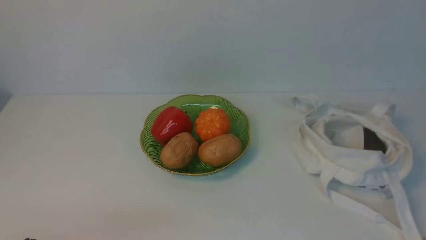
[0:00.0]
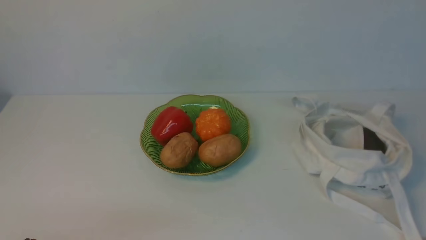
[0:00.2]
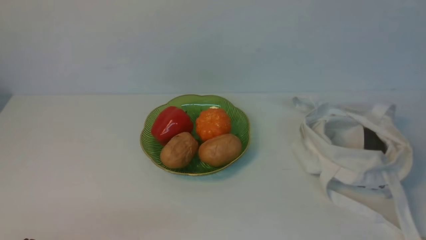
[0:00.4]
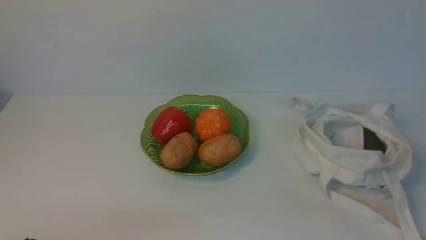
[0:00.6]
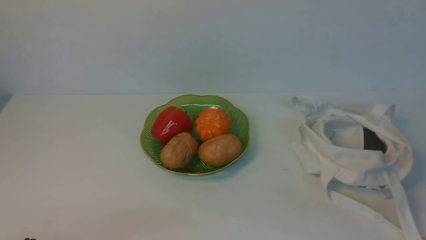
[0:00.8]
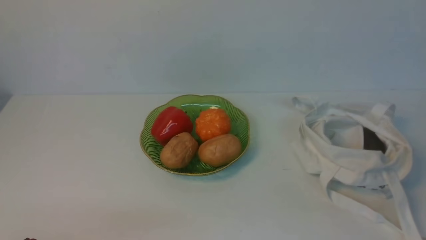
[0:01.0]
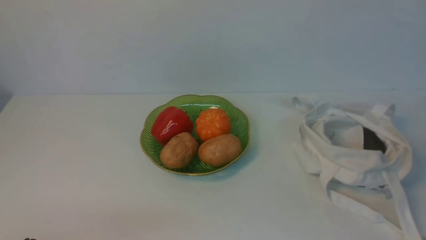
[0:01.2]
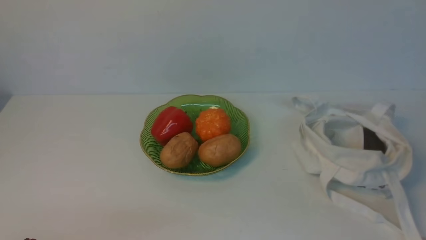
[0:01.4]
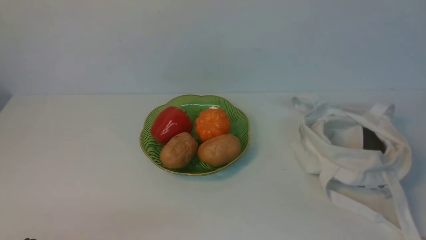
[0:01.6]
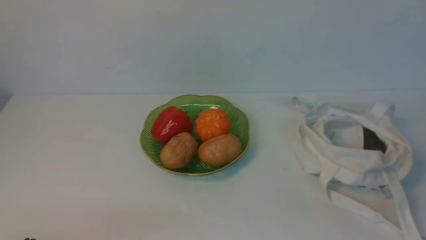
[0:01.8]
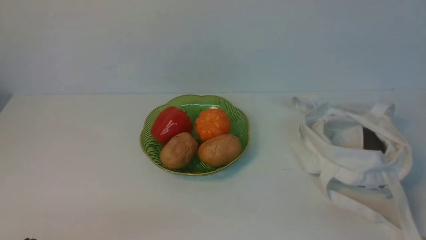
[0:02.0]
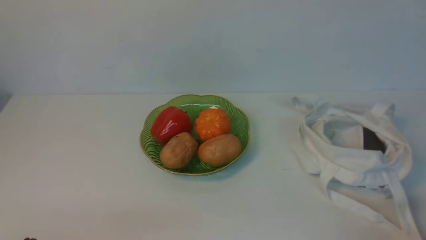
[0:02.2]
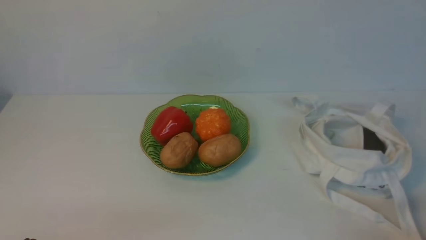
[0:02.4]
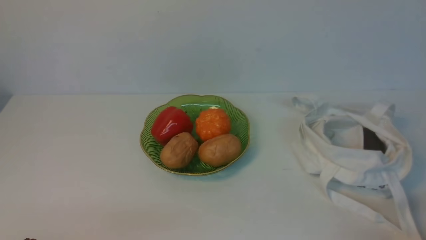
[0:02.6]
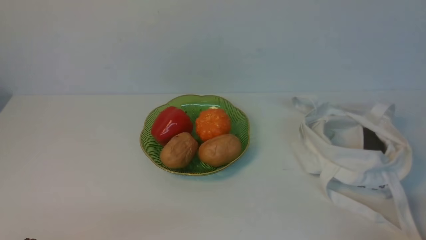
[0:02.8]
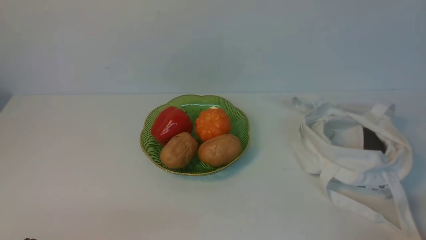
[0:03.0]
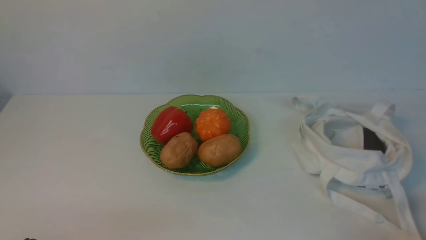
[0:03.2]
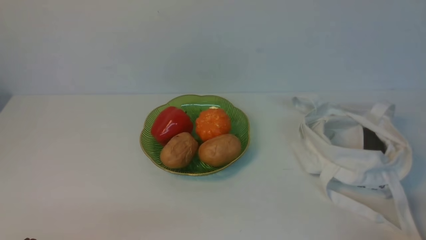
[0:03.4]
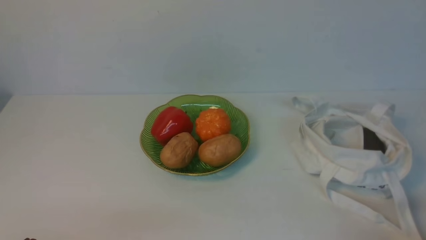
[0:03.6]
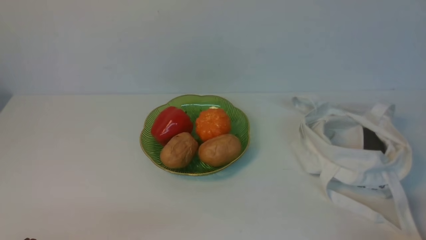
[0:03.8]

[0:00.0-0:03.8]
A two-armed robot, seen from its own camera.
Task of the whole recording: take vegetables from cloth bag on white table place on plate.
0:02.6 to 0:03.8: Neither gripper changes place.
